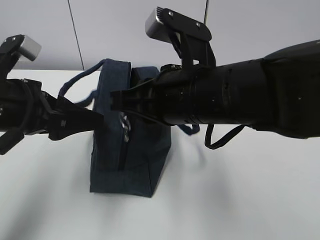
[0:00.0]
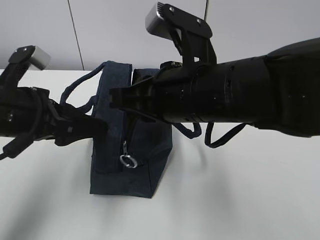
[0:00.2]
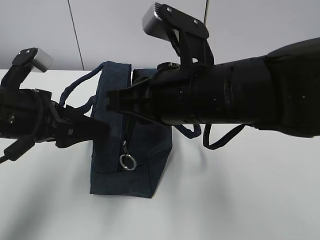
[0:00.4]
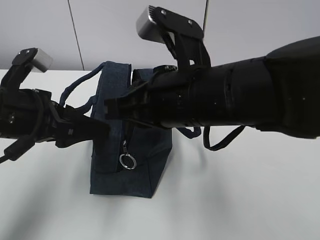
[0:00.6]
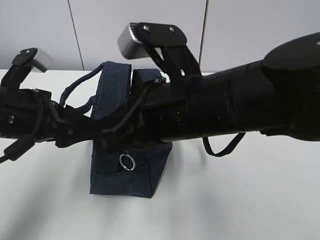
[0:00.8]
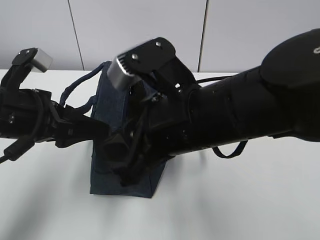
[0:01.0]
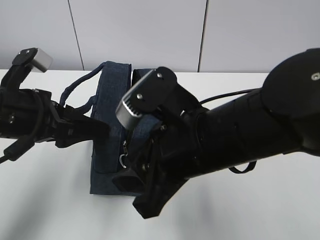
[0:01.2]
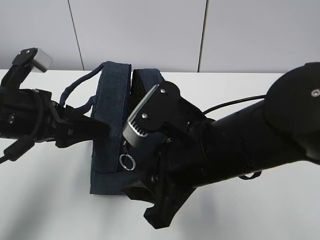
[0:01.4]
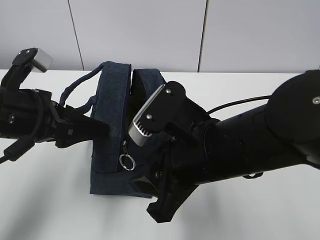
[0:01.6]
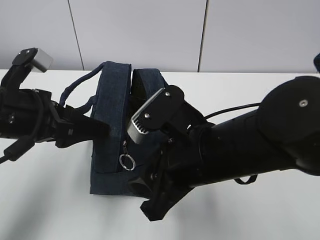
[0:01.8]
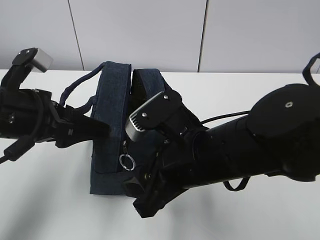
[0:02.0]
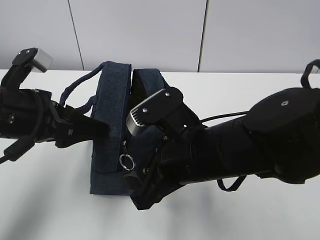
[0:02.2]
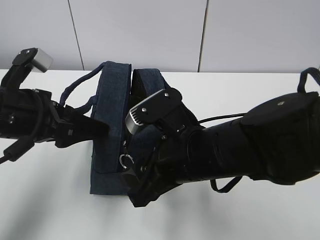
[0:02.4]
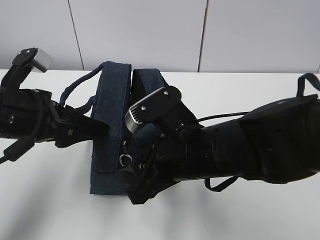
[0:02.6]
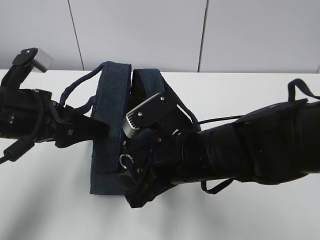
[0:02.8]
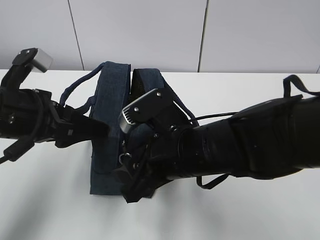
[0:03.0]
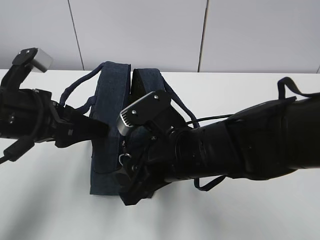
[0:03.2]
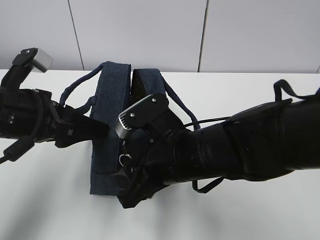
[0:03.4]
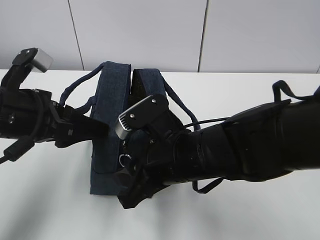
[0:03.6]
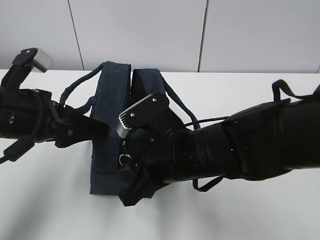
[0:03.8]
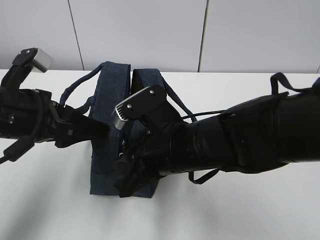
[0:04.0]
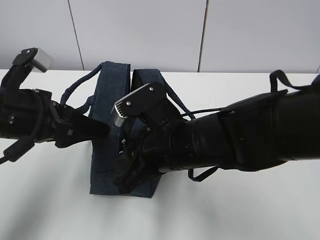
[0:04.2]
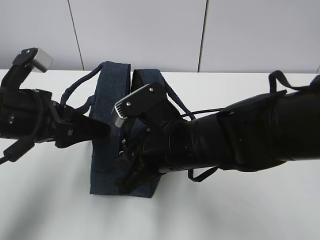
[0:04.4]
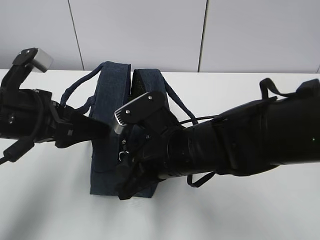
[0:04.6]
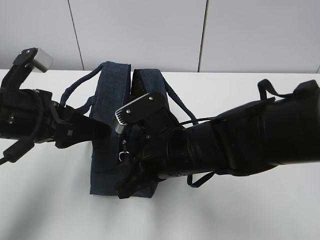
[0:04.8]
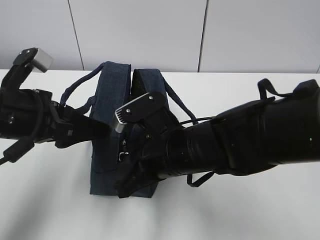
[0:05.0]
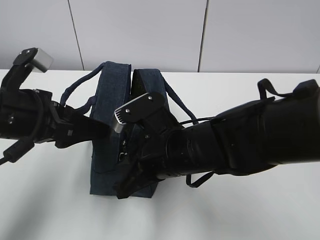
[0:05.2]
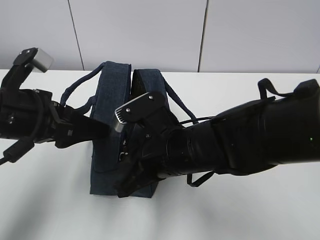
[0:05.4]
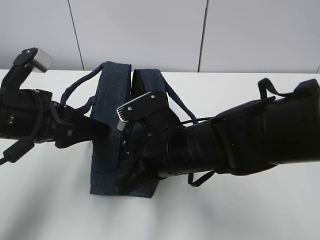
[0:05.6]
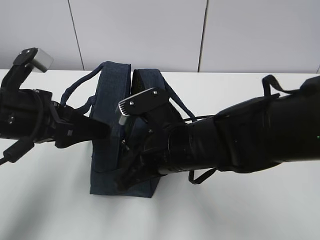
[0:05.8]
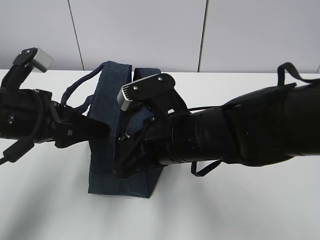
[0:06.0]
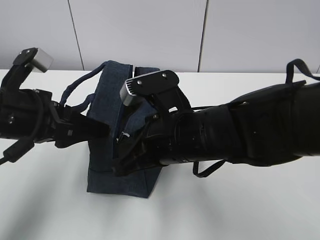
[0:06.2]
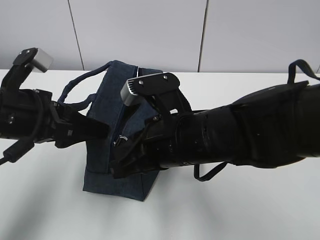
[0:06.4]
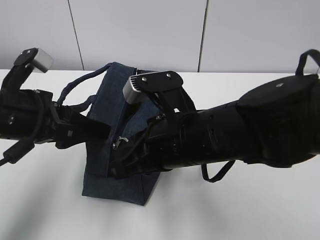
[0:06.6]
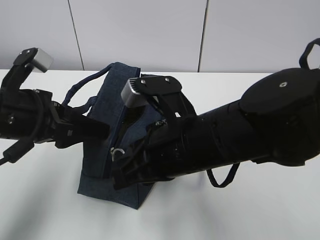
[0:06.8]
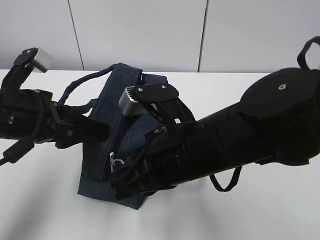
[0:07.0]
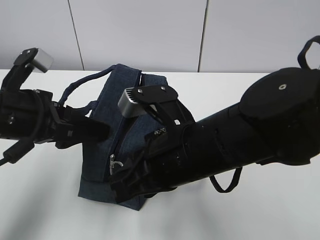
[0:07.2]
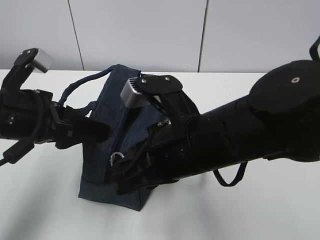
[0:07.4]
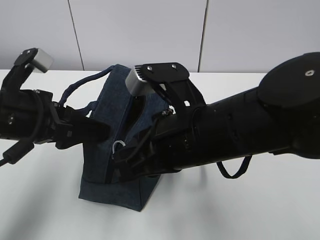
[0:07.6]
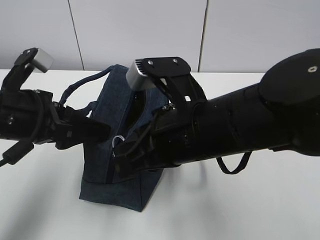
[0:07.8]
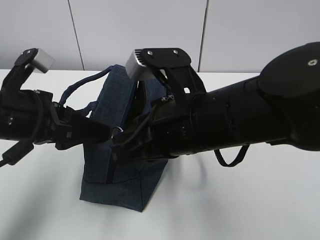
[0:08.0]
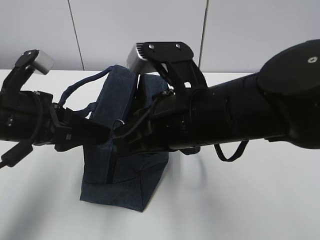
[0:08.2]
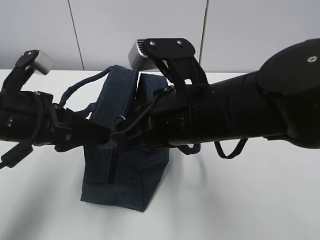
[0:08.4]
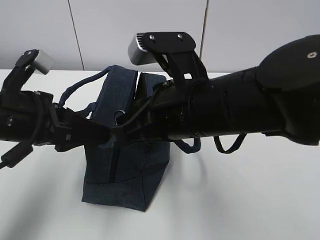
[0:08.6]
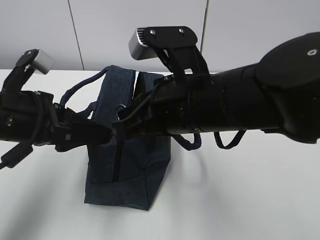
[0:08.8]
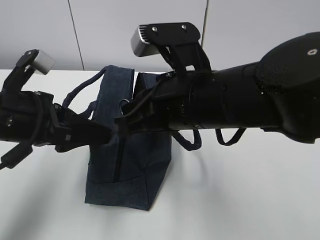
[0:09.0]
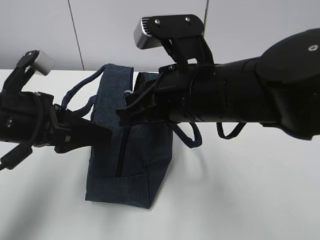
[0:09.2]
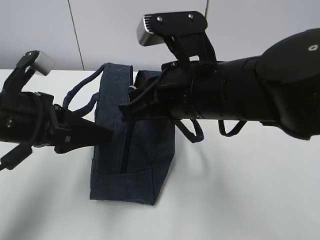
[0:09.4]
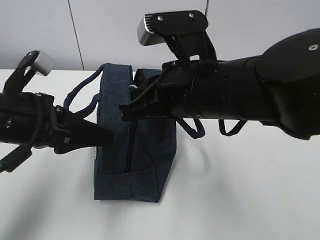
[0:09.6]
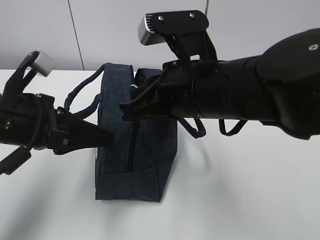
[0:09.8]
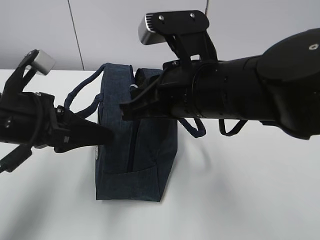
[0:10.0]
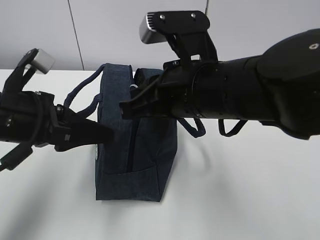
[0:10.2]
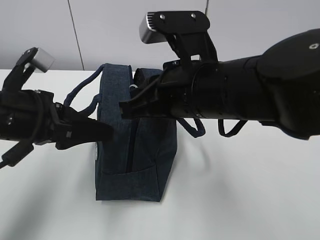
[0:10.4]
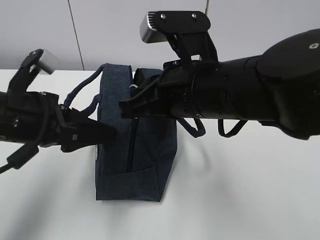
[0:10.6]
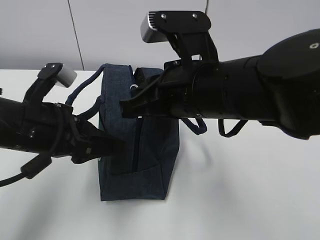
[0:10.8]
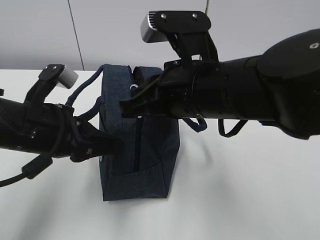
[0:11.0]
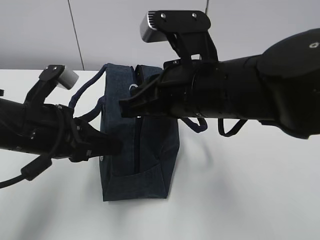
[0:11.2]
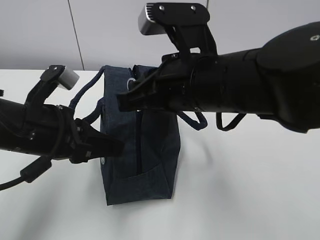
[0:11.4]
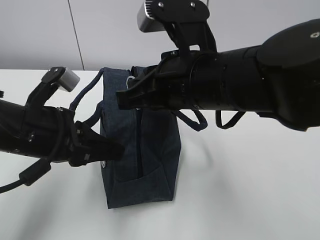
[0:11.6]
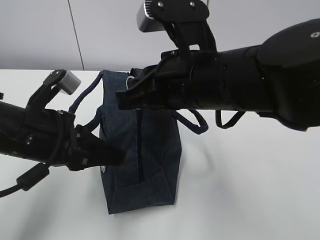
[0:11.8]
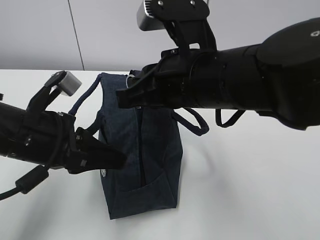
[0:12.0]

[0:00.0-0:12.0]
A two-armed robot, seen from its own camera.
Step, 0:04.8 to 0:11.4: Pull the zipper with your right hand.
0:00.0 to 0:01.6: The right gripper moves about 5 cm, and opens.
0:01.6 to 0:03.0: The grippers move only a little.
0:03.0 to 0:04.4: The right gripper closes up.
0:04.4 to 0:06.0: The right gripper closes its fingers.
0:06.0 to 0:07.6: The right gripper changes place by about 5 cm.
0:09.0 to 0:10.4: The grippers stay close to where they were, moving slightly.
0:10.4 to 0:12.0: The left gripper closes its fingers.

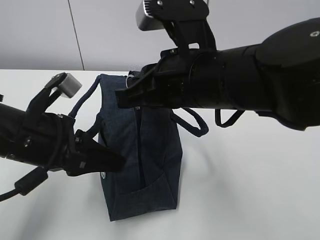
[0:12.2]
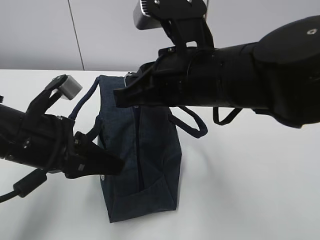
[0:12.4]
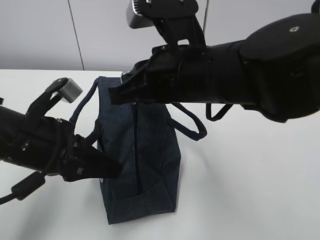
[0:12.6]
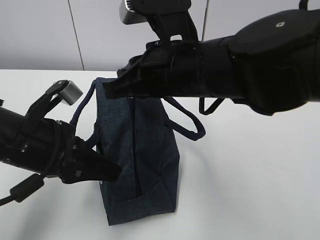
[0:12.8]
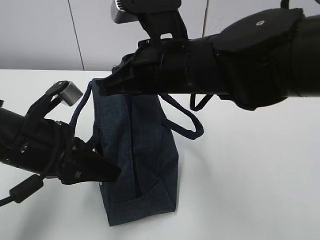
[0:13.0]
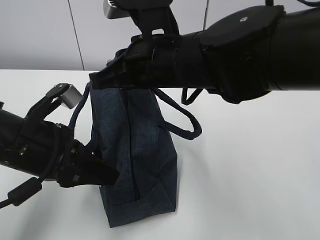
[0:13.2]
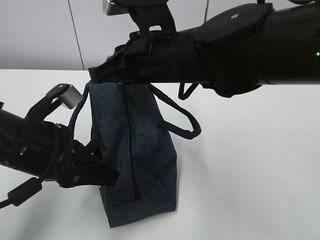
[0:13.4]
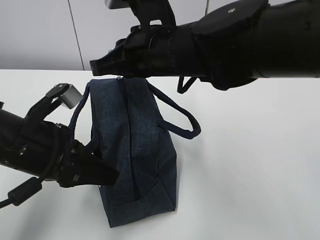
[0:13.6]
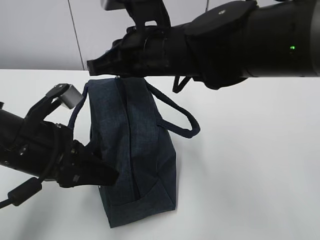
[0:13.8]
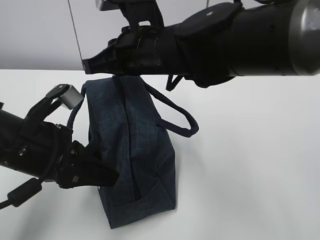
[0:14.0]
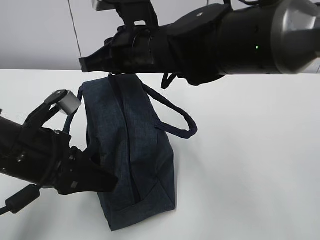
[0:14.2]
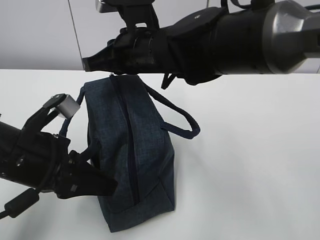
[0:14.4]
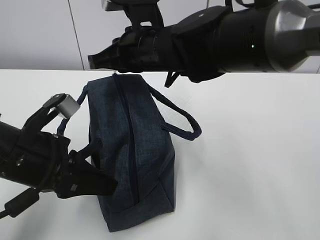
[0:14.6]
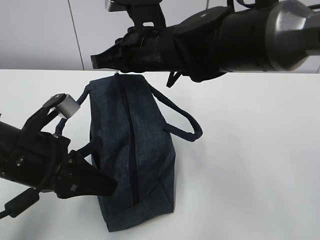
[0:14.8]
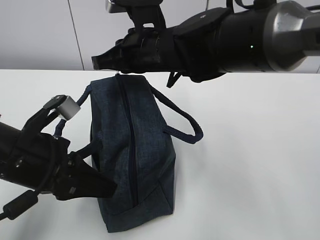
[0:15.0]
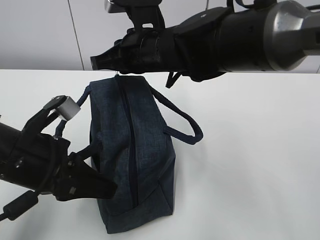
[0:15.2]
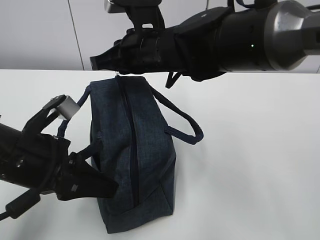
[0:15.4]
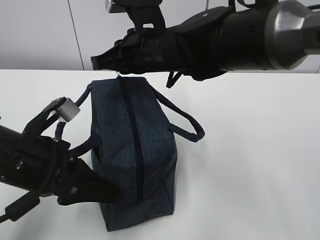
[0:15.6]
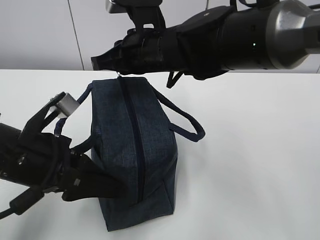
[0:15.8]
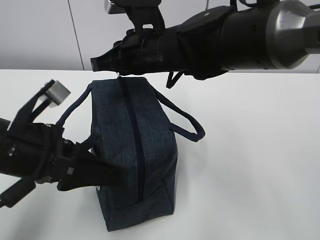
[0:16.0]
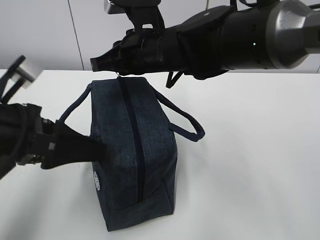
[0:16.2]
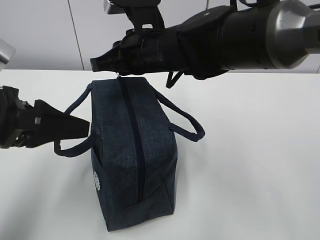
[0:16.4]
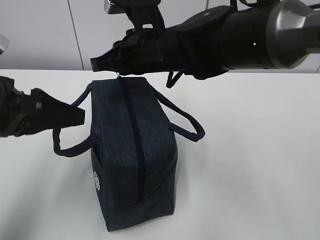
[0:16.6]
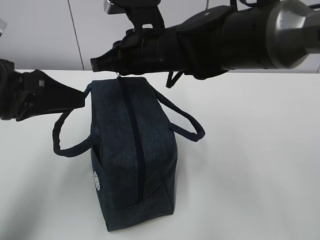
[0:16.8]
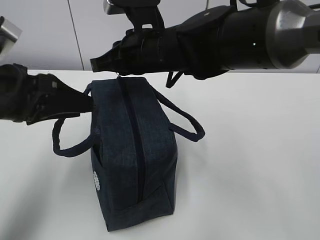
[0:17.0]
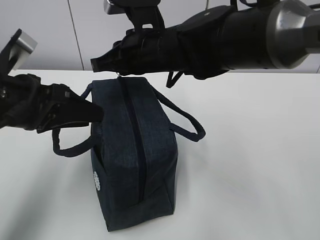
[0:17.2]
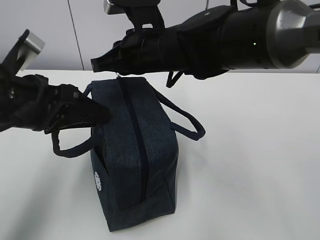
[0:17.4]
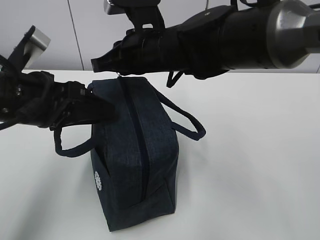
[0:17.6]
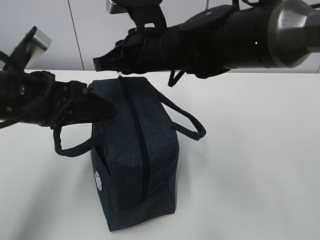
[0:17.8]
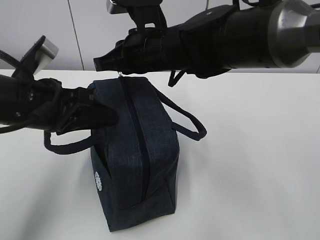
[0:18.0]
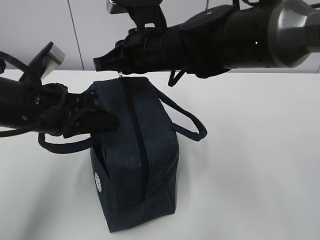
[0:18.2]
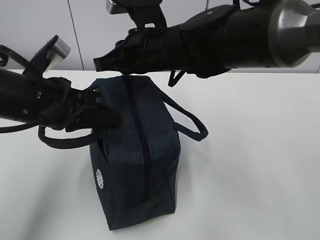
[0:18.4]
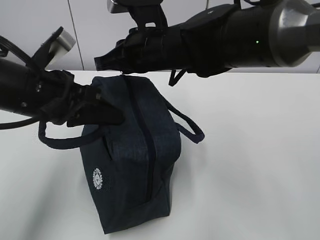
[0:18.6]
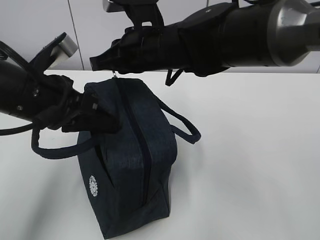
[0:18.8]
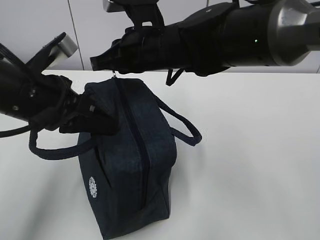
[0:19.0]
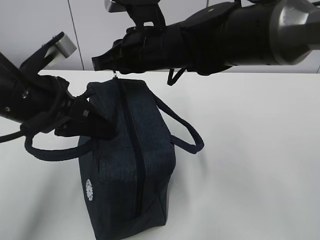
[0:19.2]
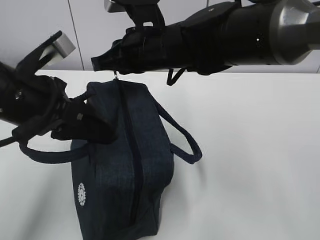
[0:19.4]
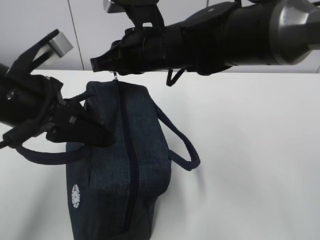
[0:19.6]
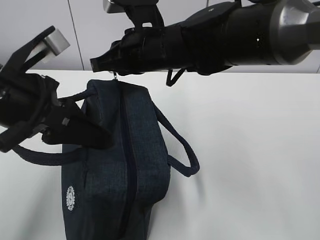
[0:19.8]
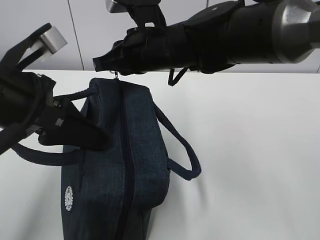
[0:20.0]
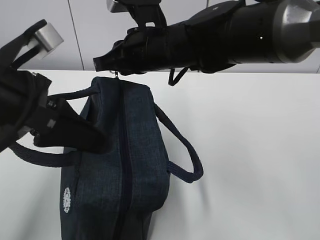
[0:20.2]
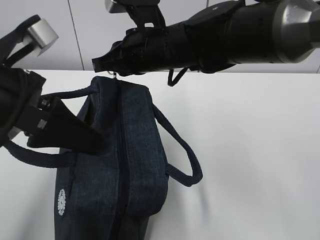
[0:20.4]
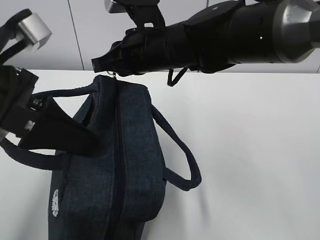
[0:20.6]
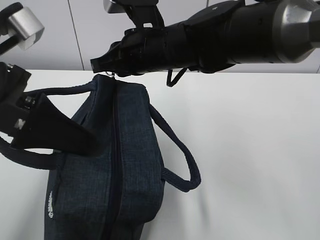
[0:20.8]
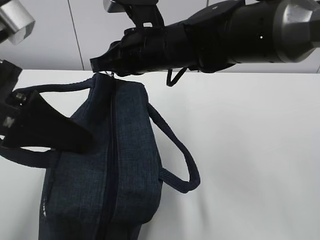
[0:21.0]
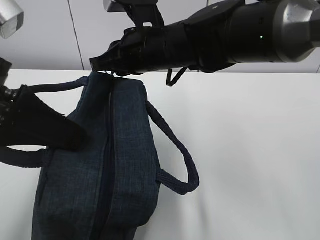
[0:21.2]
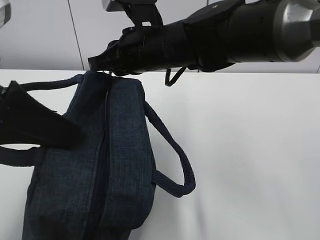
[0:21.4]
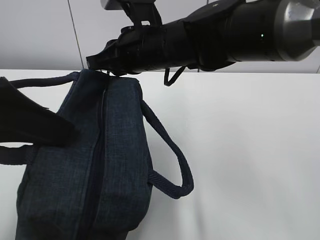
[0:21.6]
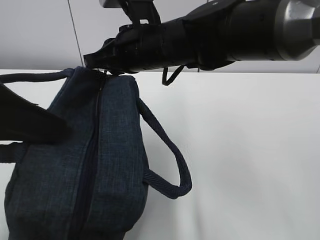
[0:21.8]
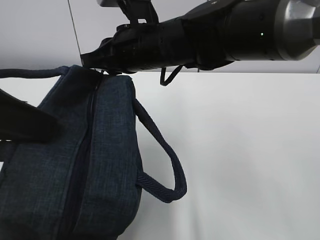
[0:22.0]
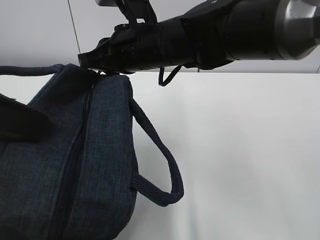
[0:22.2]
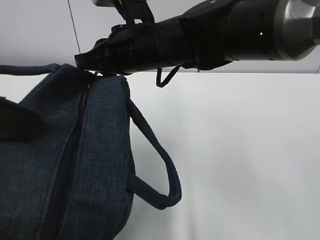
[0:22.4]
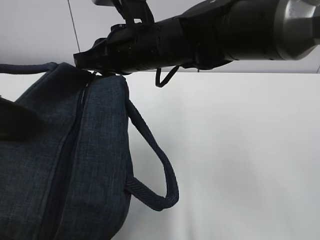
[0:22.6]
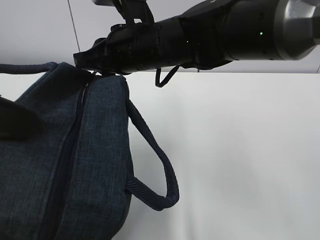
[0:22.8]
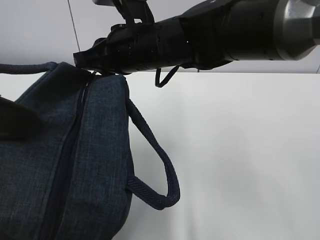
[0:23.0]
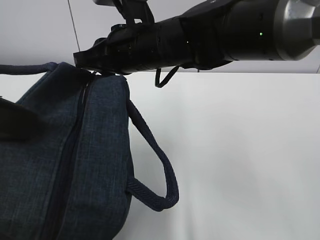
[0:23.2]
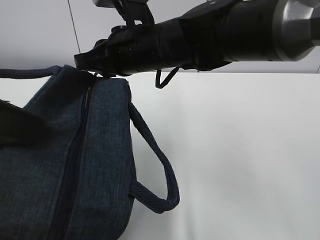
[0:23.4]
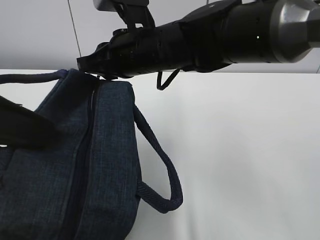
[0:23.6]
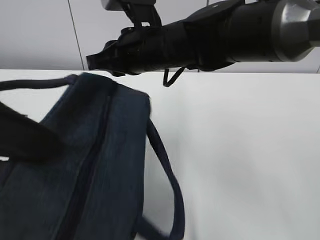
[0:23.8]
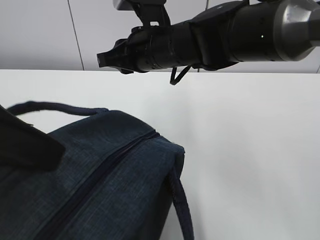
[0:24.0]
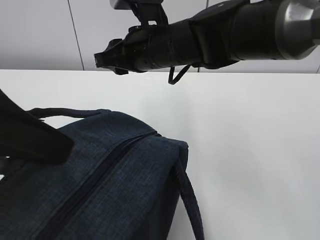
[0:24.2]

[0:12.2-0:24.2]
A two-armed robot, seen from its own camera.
0:12.2 to 0:13.8: The right gripper goes approximately 5 cm forward.
0:13.8 to 0:15.2: The grippers stay close to where they were, moving slightly.
0:15.2 to 0:16.6: The left gripper goes approximately 5 cm upward, and opens its fingers.
0:16.6 to 0:18.2: The left gripper moves some 5 cm, and closes.
0:18.2 to 0:19.8: The left gripper changes place by some 5 cm.
0:19.8 to 0:21.2: The left gripper is displaced upward by about 5 cm.
0:21.2 to 0:22.6: The left gripper goes some 5 cm backward.
0:22.6 to 0:24.2: The right gripper opens up.
